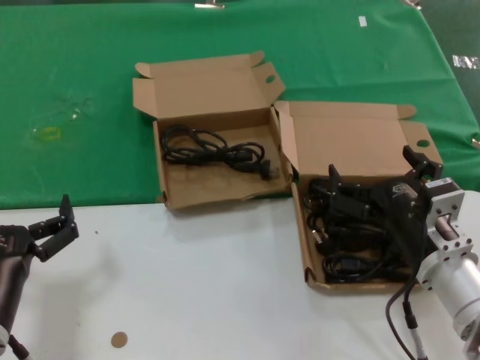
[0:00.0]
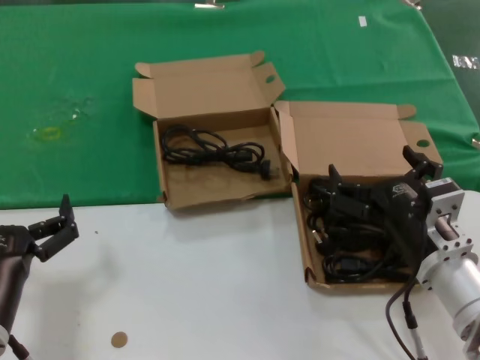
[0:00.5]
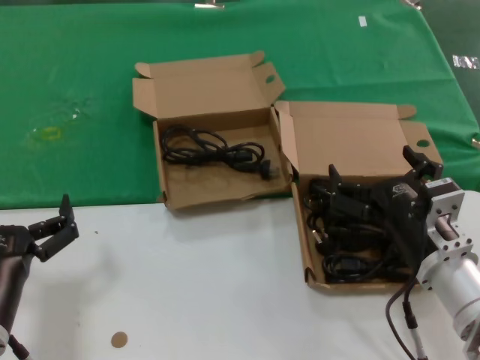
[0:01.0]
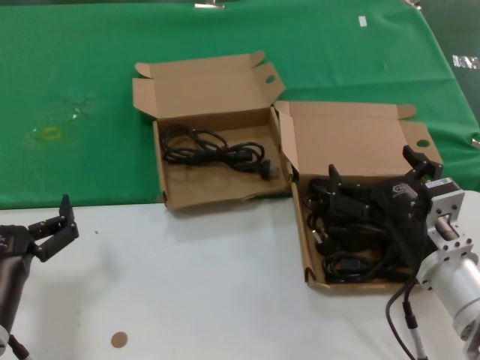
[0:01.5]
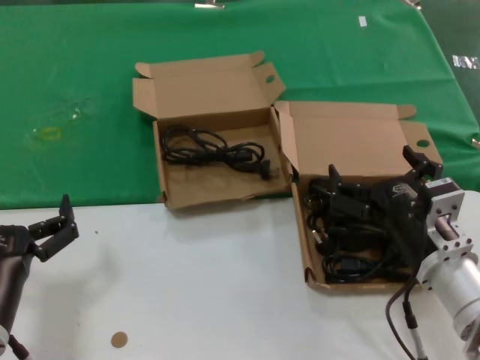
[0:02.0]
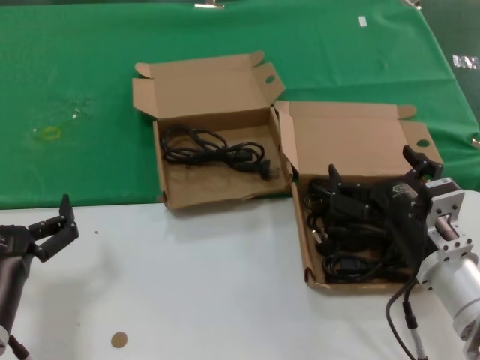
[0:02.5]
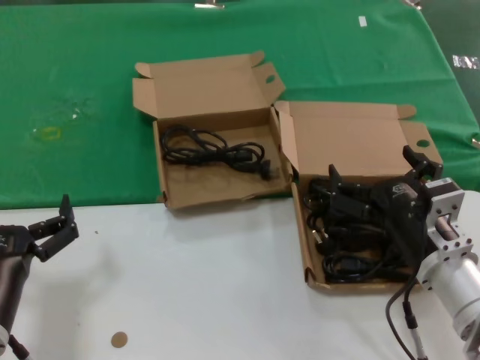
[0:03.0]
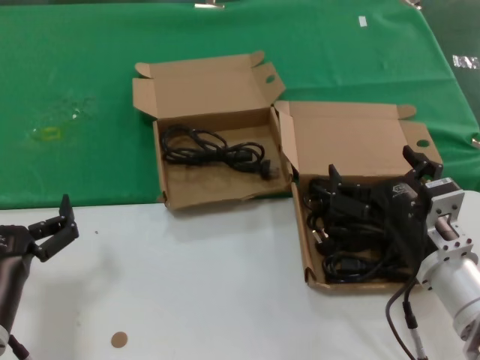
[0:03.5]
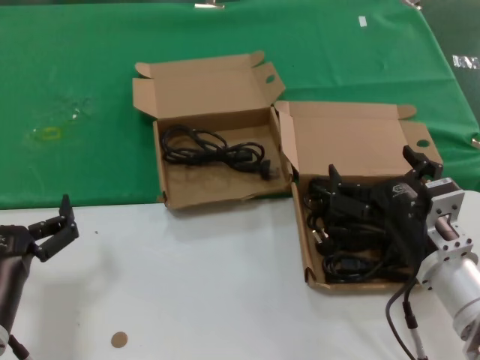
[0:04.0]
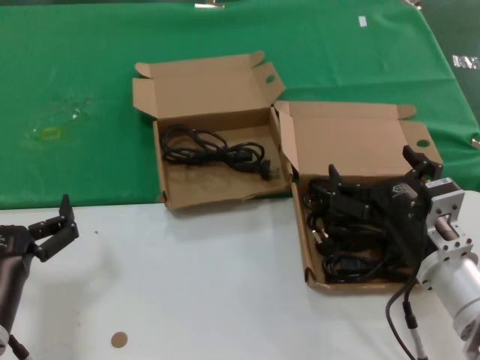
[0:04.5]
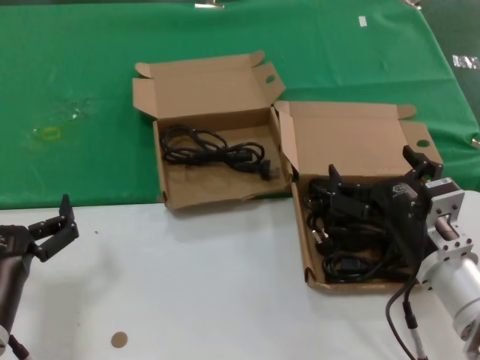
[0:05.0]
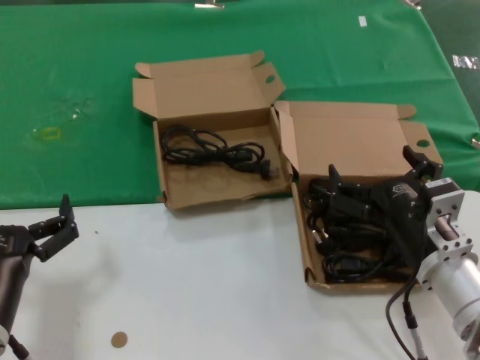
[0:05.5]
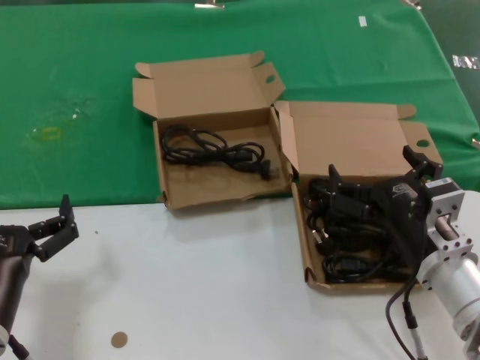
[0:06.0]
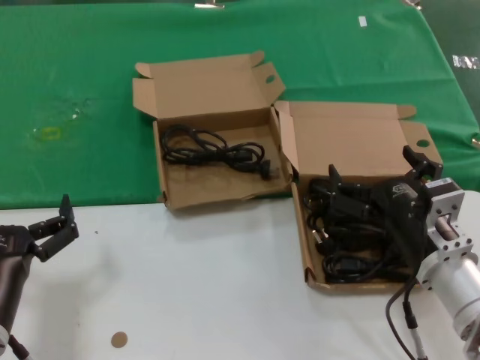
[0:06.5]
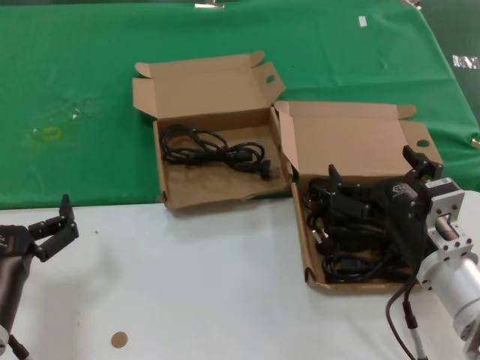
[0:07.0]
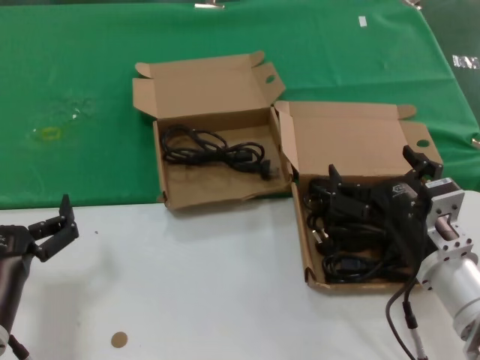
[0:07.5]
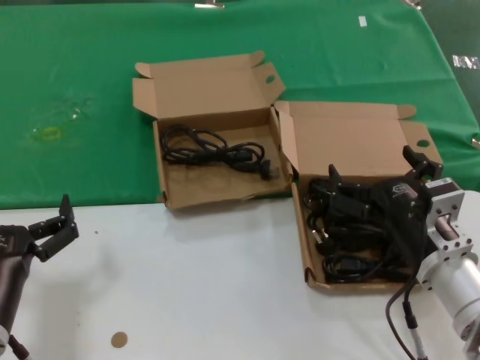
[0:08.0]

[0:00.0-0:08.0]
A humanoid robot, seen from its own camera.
Task of the whole recording: take the parts from the box containing them and put them into an empty box.
0:00.0 to 0:08.0: The two hands keep their place.
